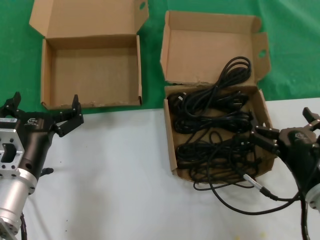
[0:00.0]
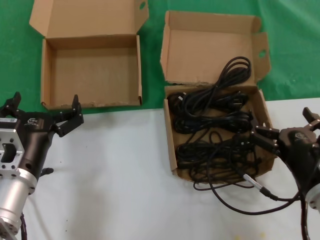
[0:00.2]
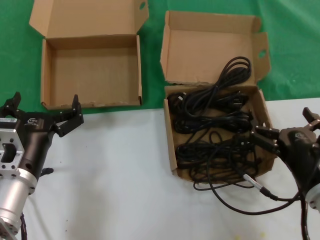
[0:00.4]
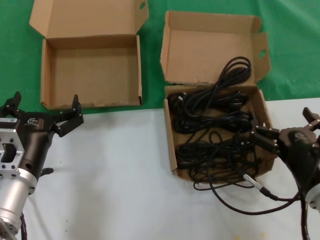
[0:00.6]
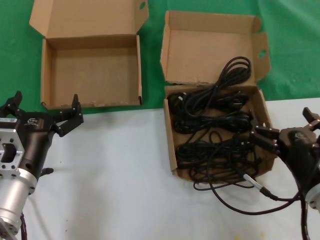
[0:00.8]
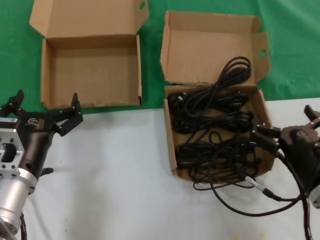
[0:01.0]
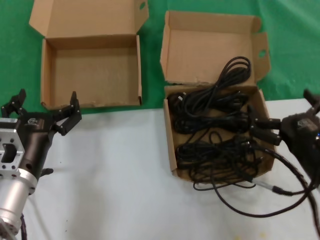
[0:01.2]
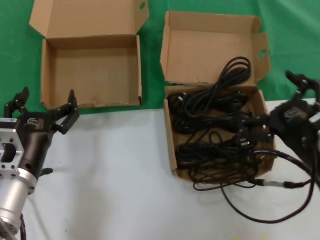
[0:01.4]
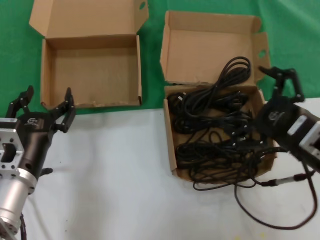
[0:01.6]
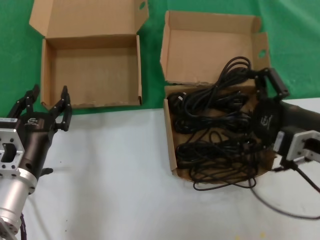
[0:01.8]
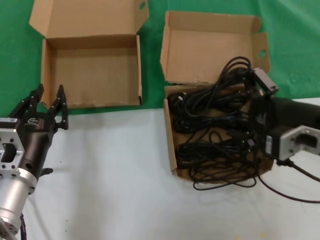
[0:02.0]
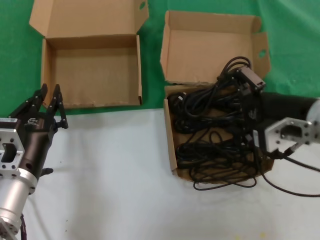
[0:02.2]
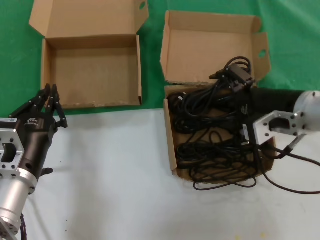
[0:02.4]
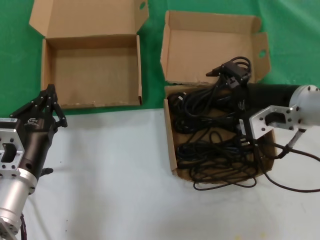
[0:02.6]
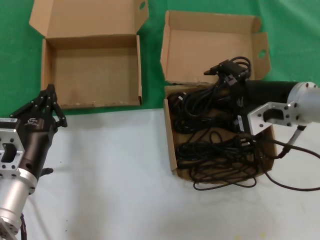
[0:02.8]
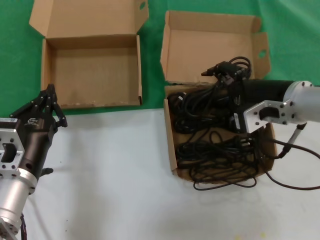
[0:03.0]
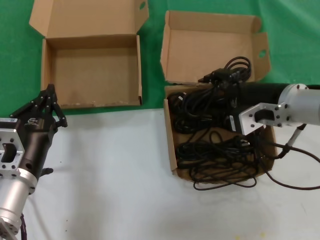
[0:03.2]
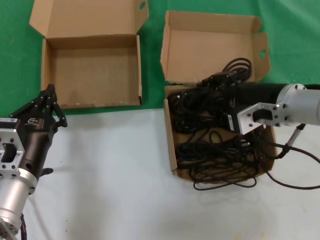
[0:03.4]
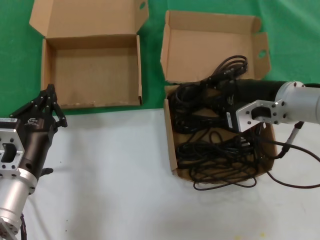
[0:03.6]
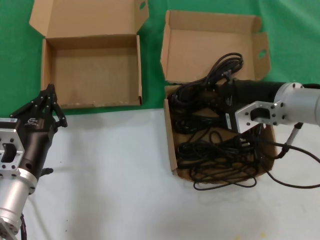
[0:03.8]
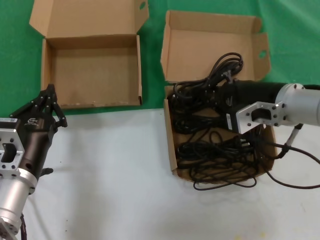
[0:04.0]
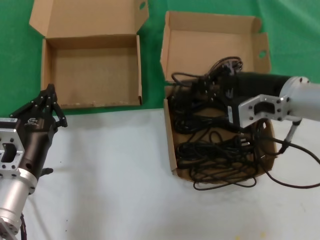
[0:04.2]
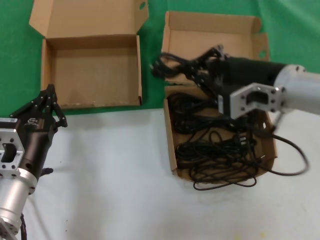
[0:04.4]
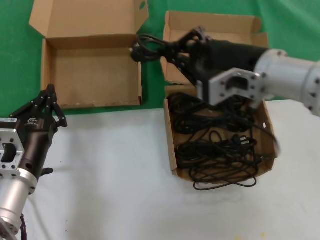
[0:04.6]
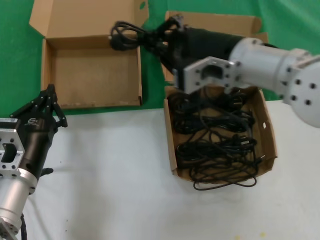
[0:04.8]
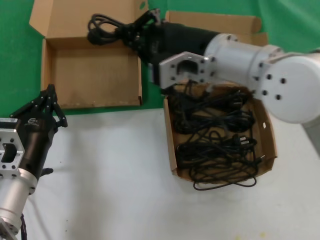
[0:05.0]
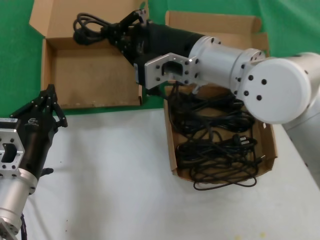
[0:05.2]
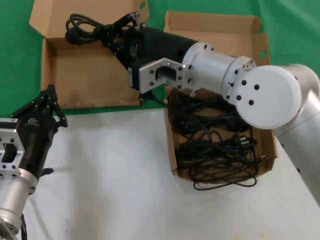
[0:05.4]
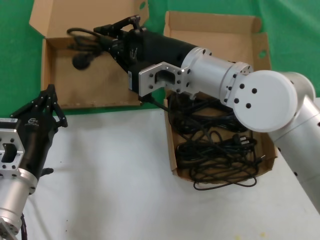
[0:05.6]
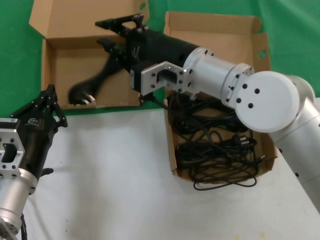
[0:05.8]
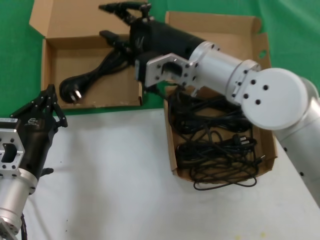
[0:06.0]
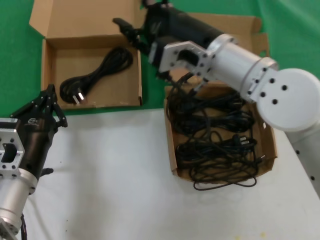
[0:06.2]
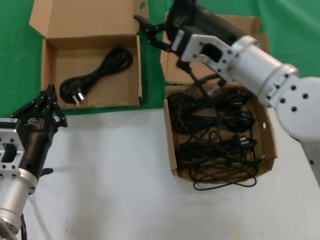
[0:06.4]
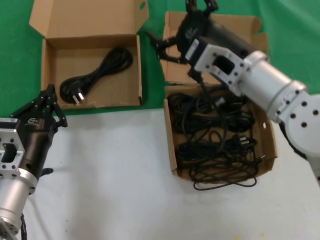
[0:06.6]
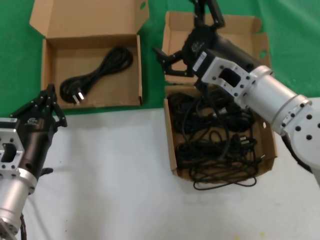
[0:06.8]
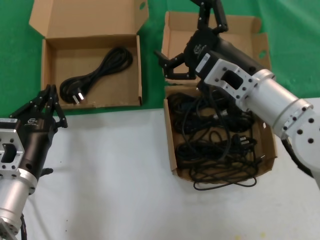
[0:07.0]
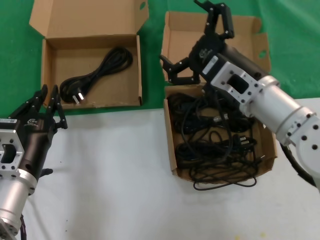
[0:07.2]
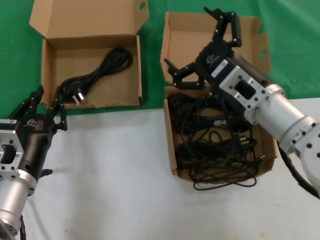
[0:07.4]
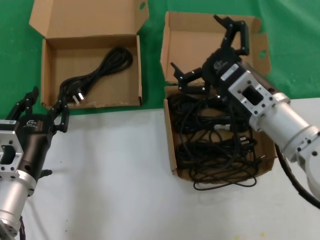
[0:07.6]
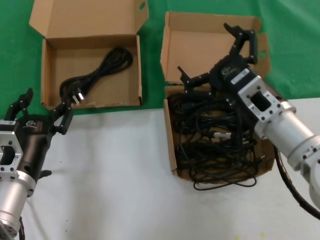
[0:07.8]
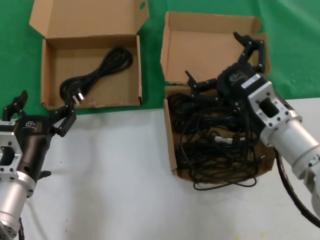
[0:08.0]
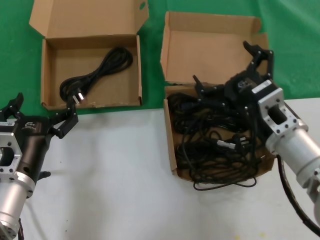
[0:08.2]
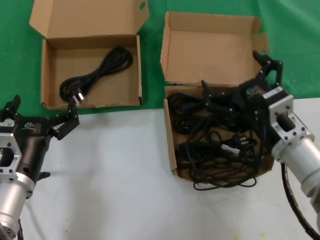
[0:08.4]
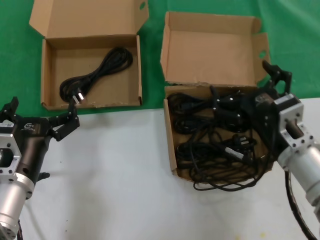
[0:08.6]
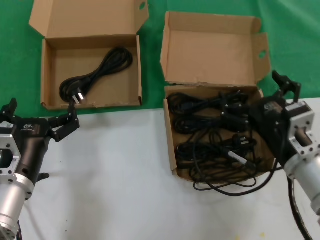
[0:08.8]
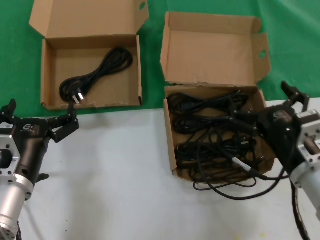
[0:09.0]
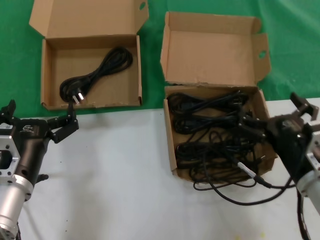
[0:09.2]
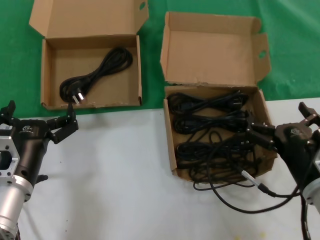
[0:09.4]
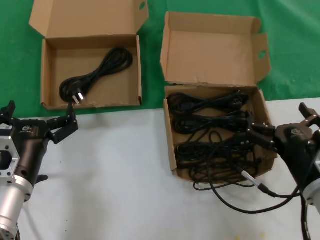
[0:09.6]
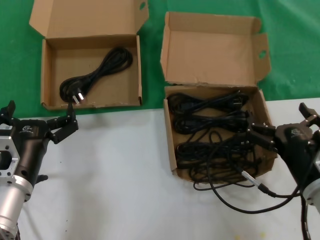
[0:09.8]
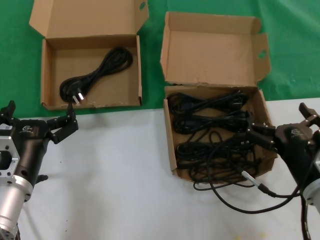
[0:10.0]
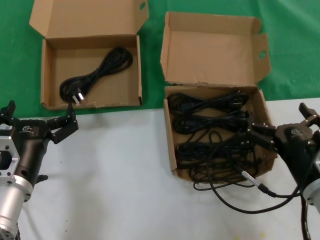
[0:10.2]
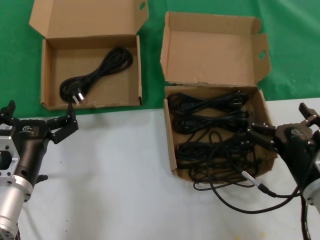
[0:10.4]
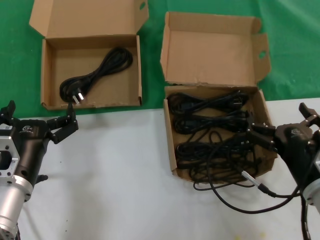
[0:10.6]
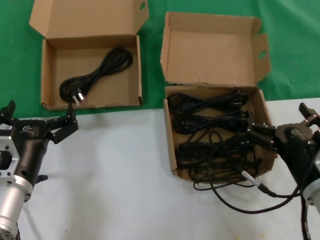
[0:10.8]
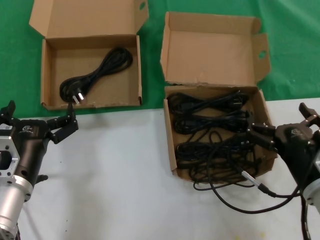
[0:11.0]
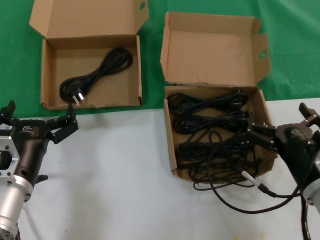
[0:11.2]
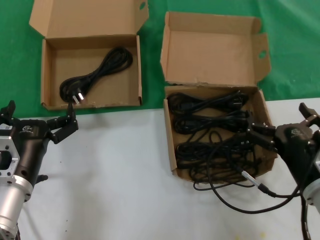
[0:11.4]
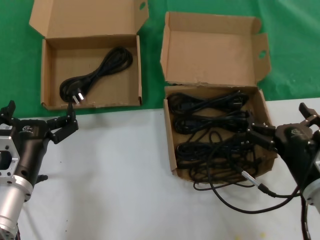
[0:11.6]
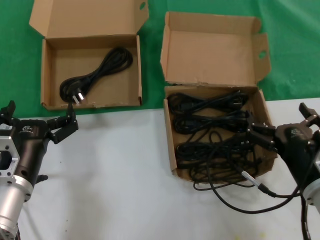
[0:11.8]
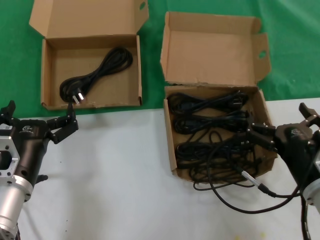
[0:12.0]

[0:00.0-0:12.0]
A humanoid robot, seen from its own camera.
Task of the whole recording: take the parts from the box containing them and put them into an empty box.
Step, 0:00.0 to 0:03.8: Grasp the data cable.
Step, 0:04.0 to 0:05.8: Place the data cable in the another box.
0:00.0 to 0:01.6: The right hand goes about 10 cm upward.
0:01.6 to 0:03.0: The right hand travels forward and upward by some 15 cm.
0:03.0 to 0:04.4: The right hand shifts by about 5 cm.
0:04.4 to 0:06.0: The right hand travels to the left by approximately 10 cm.
0:06.0 to 0:07.6: The right hand travels to the right and downward by approximately 10 cm.
0:07.6 to 0:09.0: The right hand travels downward, backward and to the right by some 10 cm.
0:09.0 to 0:10.4: There are only small adjustments of the hands.
0:10.4 to 0:12.0: Both hands stay put.

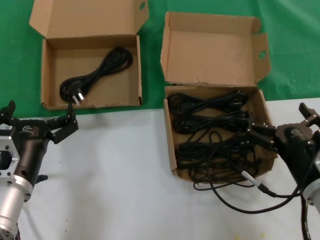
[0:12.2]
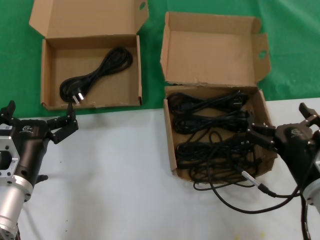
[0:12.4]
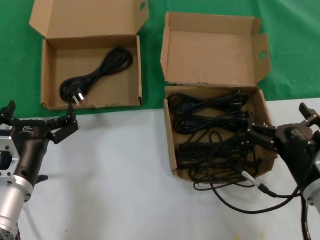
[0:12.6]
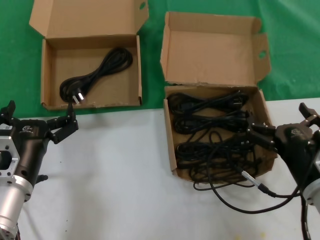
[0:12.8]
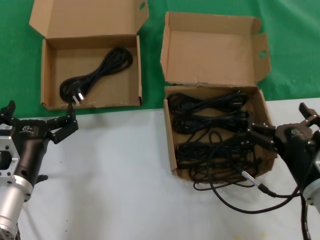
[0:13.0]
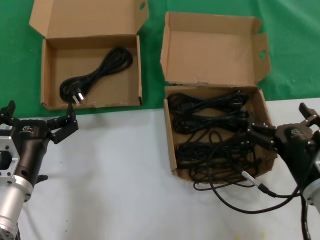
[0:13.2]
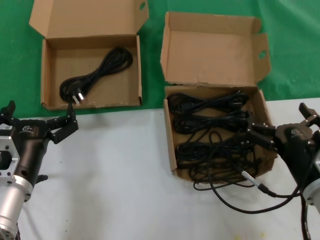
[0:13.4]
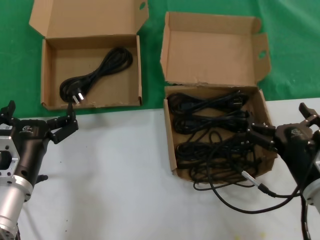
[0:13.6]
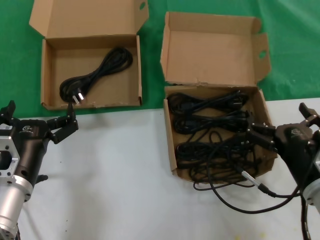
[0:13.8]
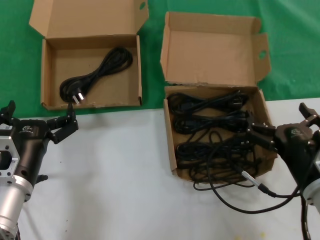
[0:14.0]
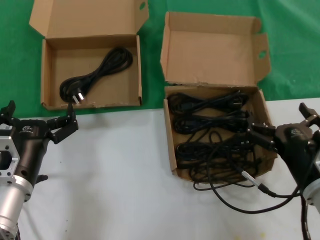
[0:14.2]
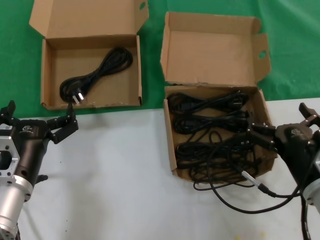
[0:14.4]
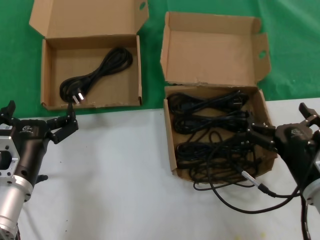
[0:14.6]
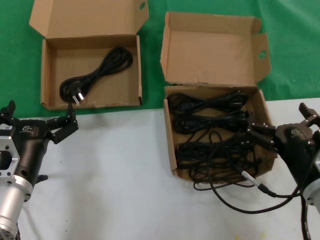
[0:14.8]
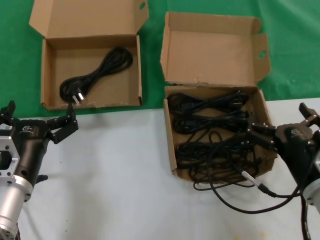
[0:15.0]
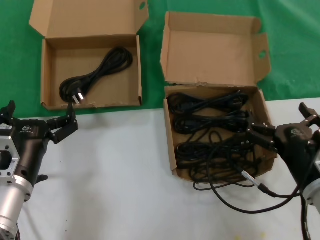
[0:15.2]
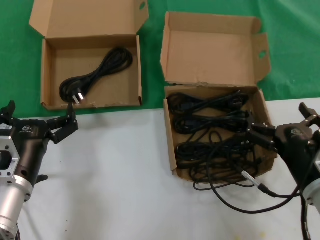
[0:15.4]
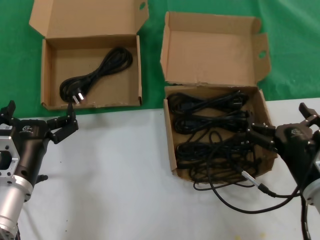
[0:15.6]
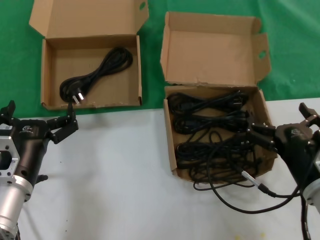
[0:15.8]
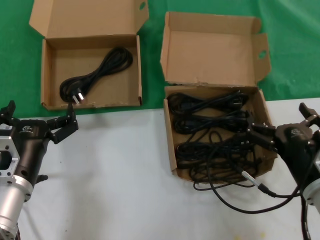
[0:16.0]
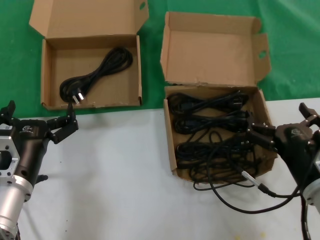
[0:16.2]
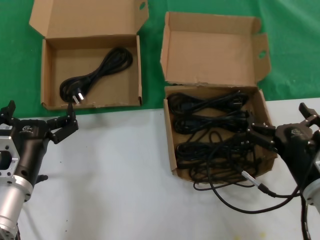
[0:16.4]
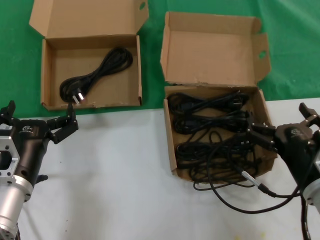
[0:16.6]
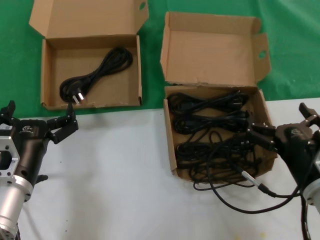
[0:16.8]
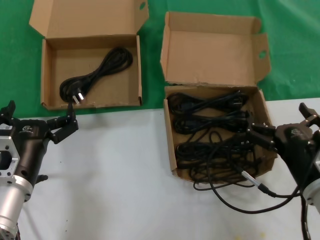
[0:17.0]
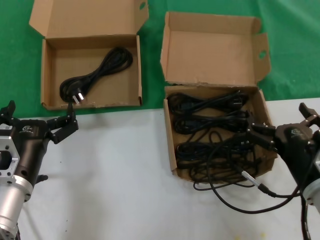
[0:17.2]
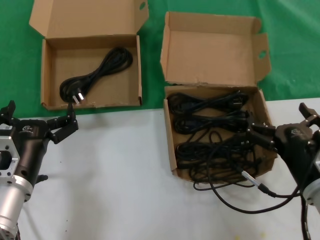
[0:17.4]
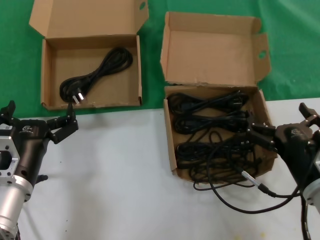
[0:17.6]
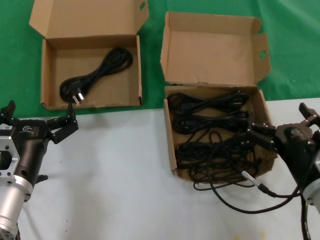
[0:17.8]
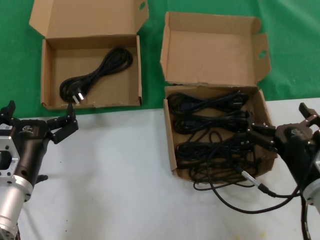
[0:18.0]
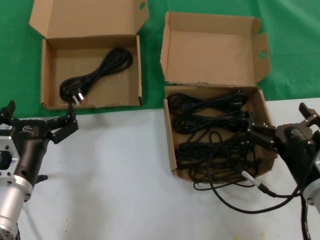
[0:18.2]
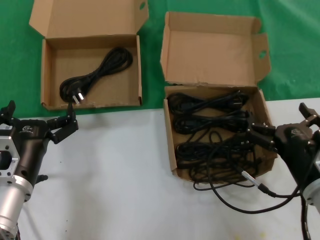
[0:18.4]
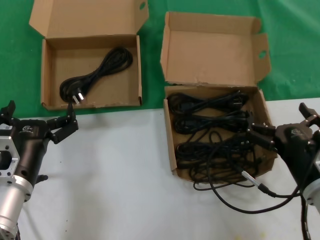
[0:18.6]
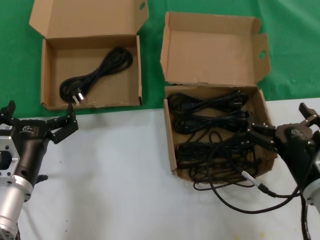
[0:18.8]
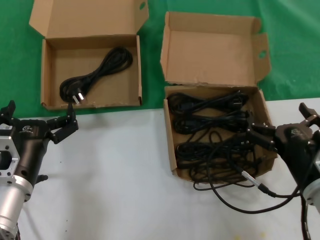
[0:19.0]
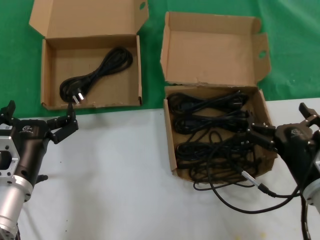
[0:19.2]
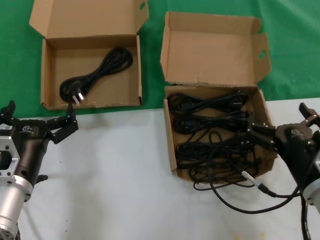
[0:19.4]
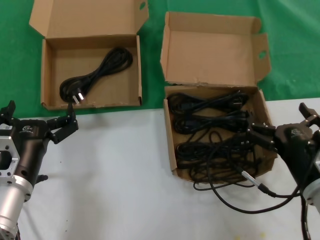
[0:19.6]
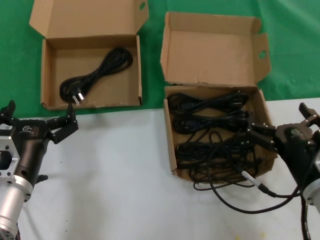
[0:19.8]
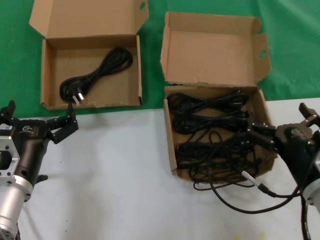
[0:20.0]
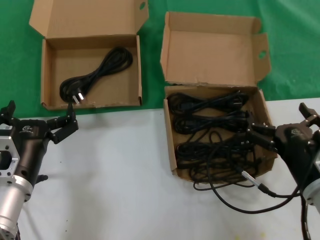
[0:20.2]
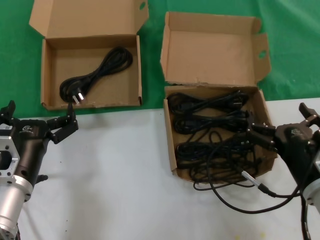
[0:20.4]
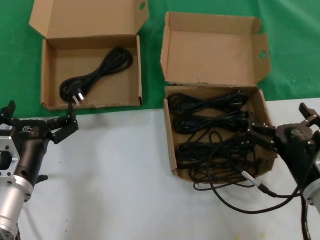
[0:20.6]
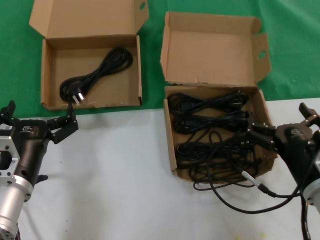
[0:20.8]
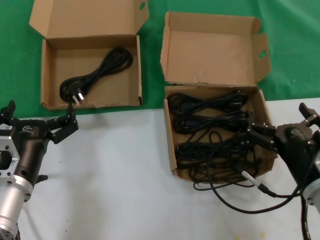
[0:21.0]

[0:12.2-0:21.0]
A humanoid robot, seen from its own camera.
Task of the whole recording: take the parts from the box containing them and put them into an empty box.
0:12.2 to 0:21.0: Neither hand changes place.

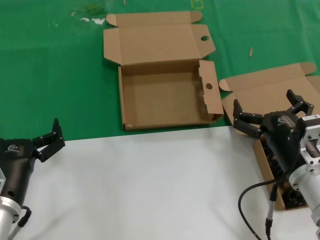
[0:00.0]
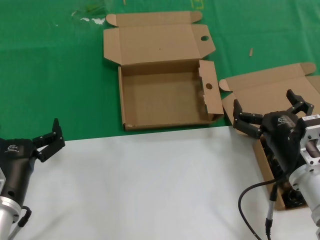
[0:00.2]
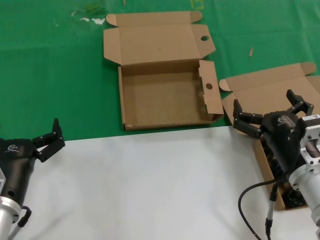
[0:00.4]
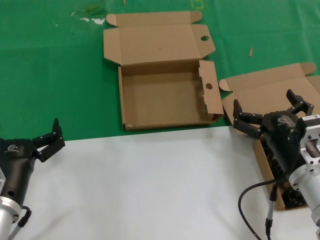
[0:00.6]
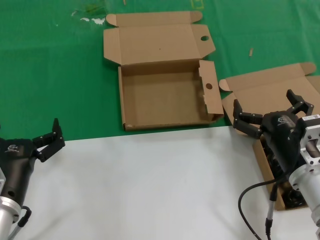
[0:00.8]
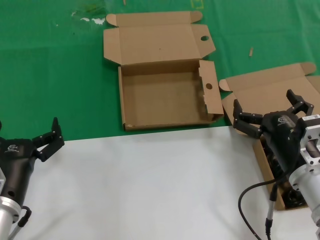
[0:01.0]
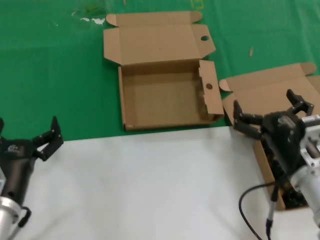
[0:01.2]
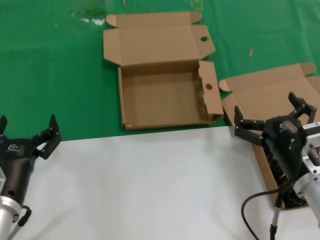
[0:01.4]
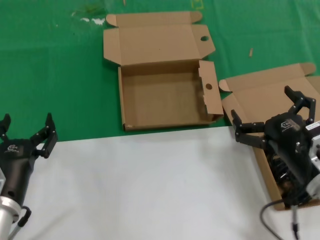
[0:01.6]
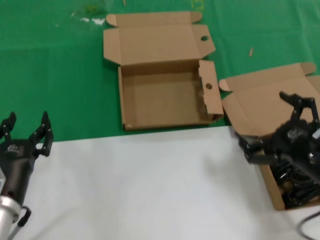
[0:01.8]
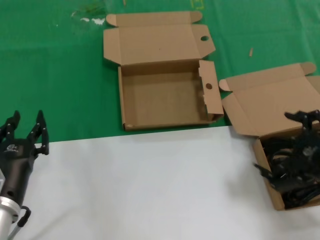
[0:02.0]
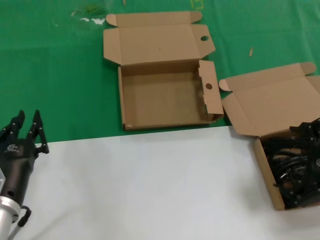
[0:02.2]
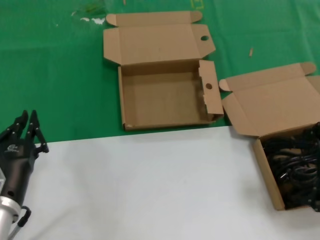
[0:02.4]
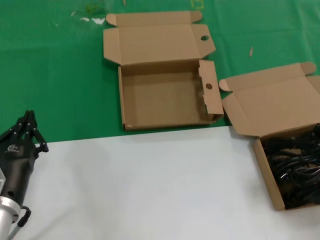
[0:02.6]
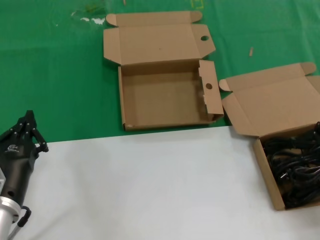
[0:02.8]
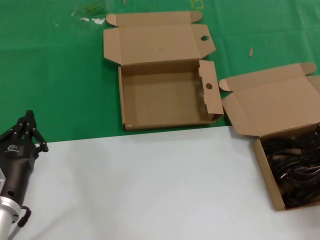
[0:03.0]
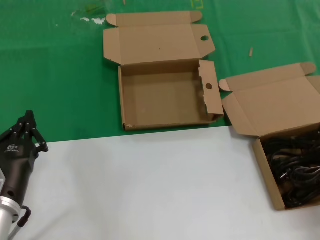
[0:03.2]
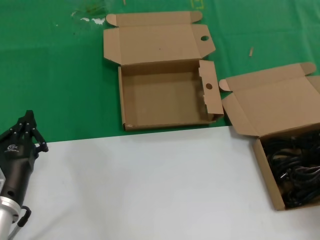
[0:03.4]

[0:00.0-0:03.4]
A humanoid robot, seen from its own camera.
Task of the whole recording: take the parts from the box containing them and put them into an empty box.
0:00.0 to 0:01.6: There are only small adjustments of the hands.
0:01.6 to 0:03.4: The right hand travels to the right, upward and forward by roughly 20 cm.
